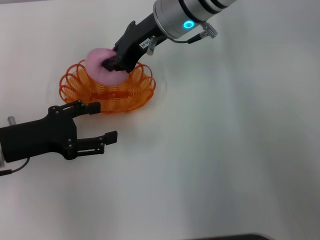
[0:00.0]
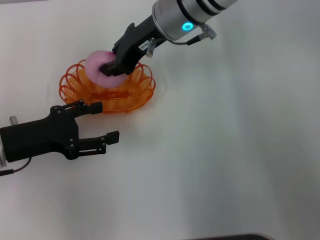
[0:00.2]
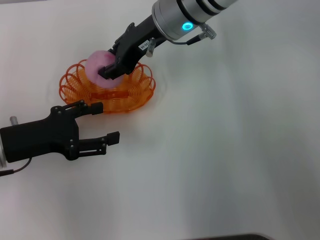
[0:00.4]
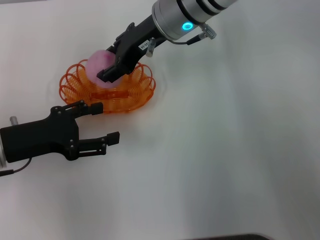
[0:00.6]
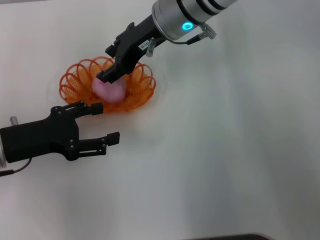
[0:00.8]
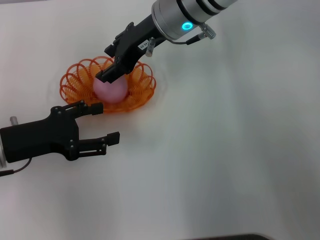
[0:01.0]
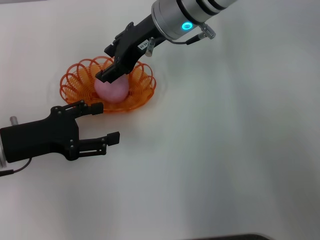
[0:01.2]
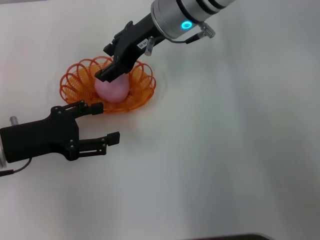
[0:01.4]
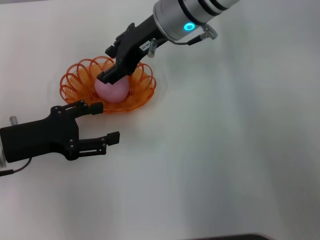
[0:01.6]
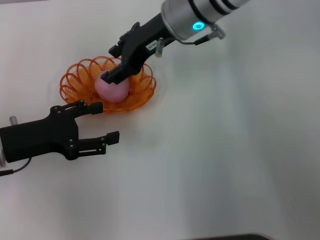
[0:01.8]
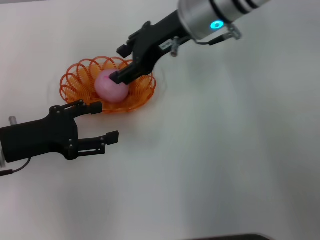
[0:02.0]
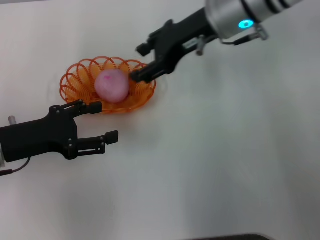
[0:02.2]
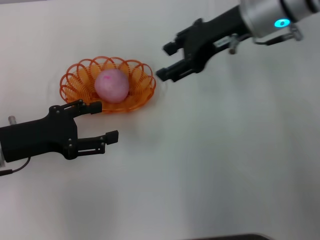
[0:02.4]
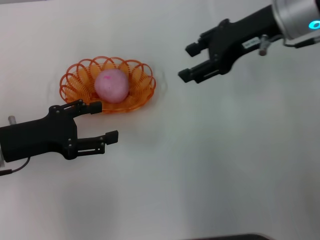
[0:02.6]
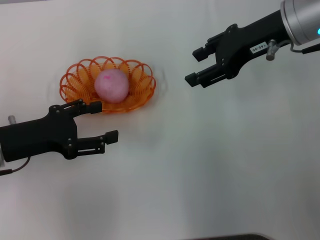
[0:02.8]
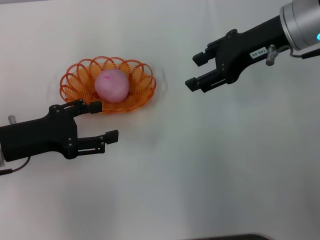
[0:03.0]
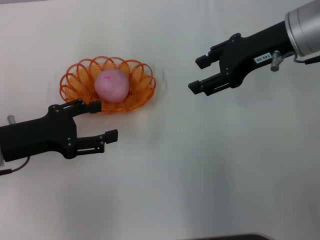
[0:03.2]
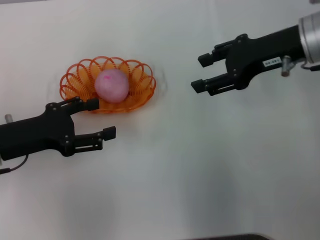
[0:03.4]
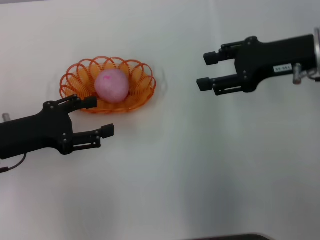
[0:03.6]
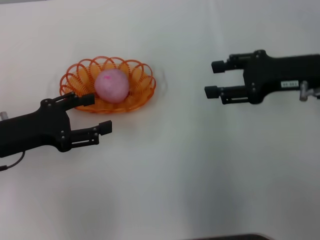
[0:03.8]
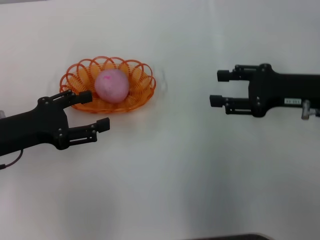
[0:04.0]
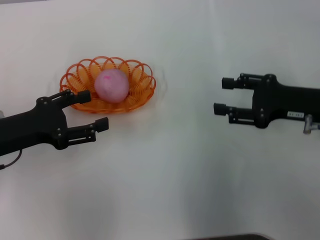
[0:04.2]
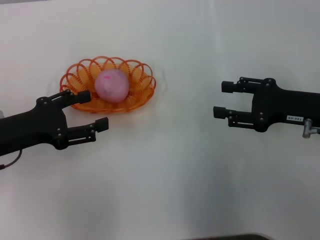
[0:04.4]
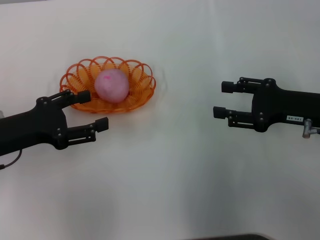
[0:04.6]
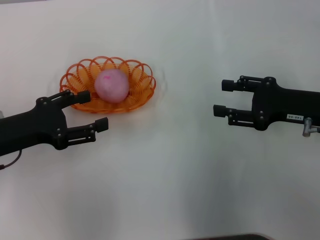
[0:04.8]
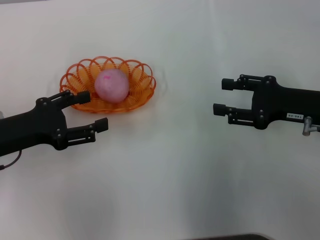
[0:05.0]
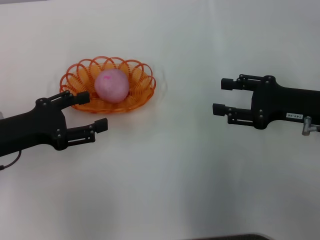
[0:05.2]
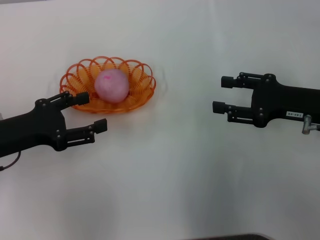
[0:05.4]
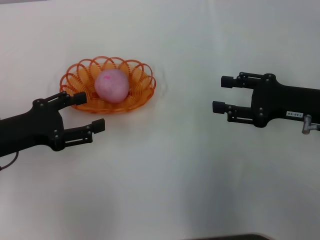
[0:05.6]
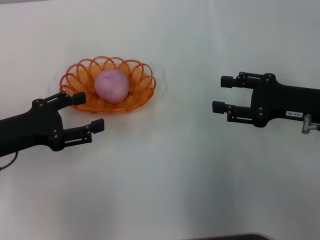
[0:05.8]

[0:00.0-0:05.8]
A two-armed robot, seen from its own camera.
Step, 0:00.0 to 0:02.6: Place the peach into the basket with the right gripper.
0:00.0 to 0:01.4: The right gripper opens.
0:01.4 to 0:02.8: The right gripper heads to the right, covering some 15 cm.
0:02.8 to 0:04.4: The right gripper shifts about 15 cm downward, backward and to the right.
0:04.4 to 0:05.8: Neither gripper changes place.

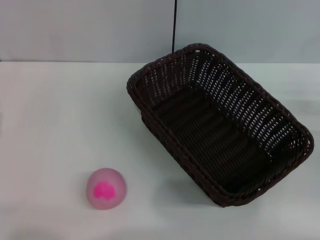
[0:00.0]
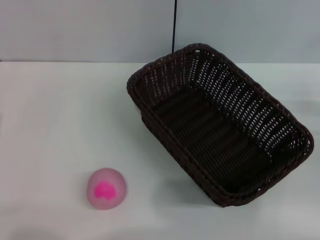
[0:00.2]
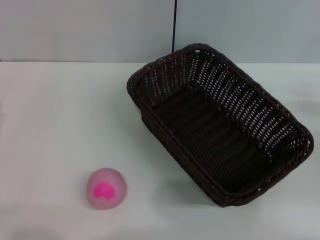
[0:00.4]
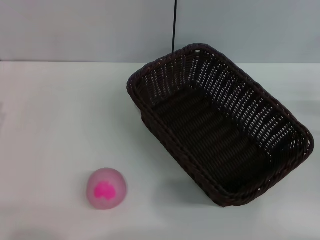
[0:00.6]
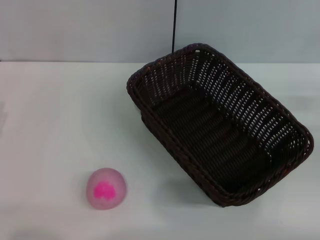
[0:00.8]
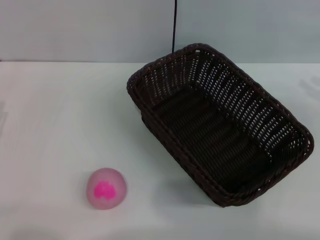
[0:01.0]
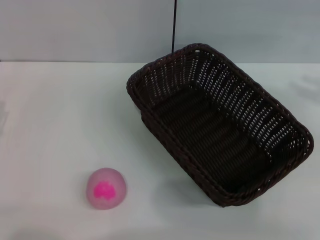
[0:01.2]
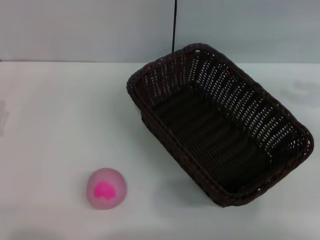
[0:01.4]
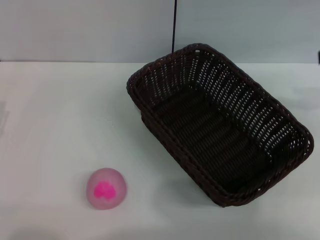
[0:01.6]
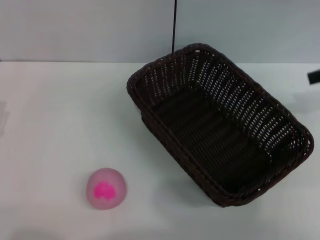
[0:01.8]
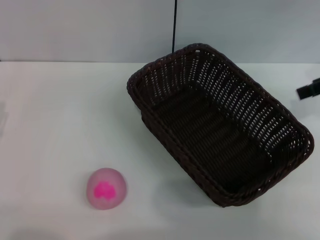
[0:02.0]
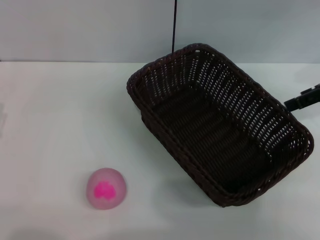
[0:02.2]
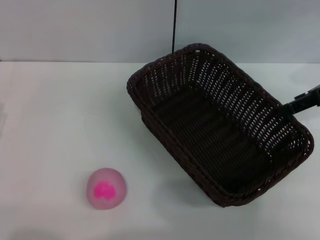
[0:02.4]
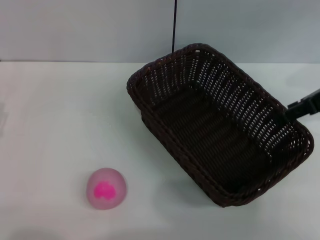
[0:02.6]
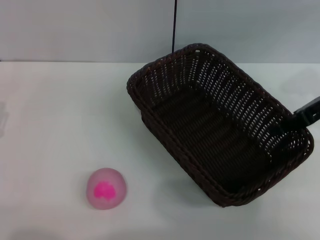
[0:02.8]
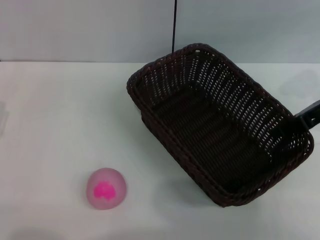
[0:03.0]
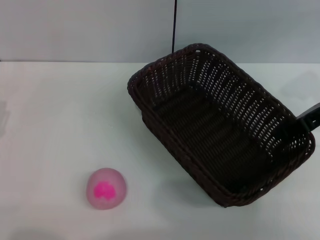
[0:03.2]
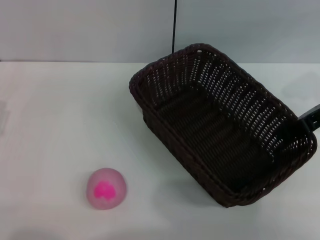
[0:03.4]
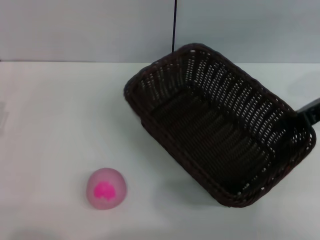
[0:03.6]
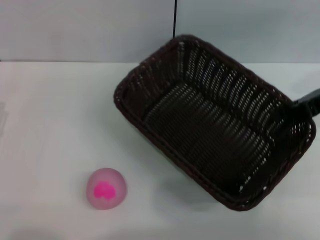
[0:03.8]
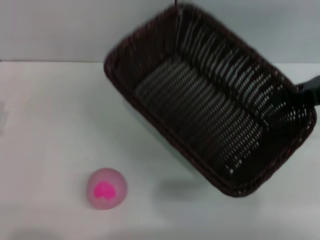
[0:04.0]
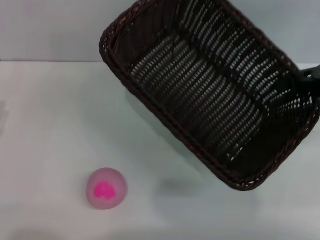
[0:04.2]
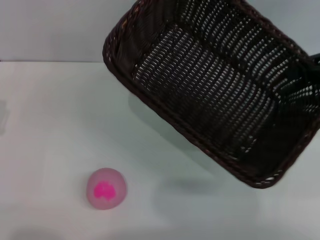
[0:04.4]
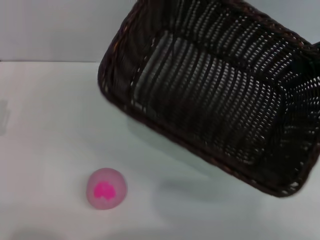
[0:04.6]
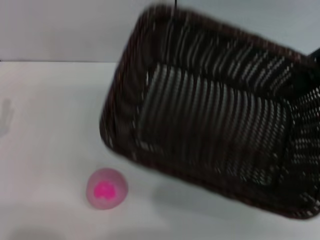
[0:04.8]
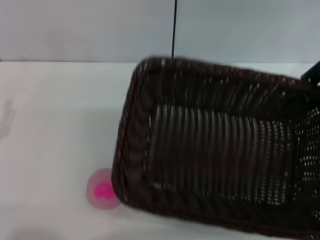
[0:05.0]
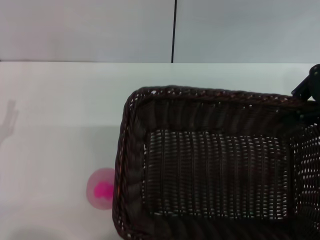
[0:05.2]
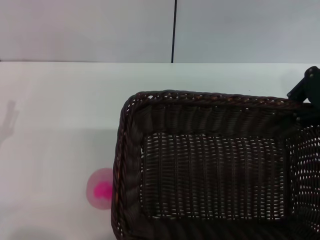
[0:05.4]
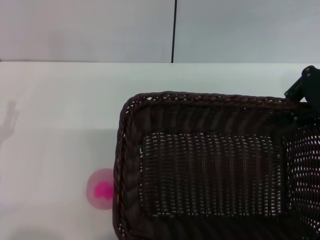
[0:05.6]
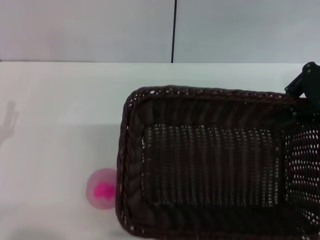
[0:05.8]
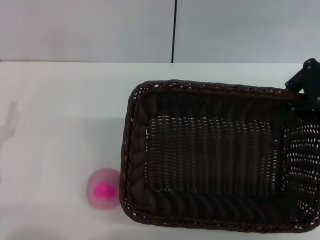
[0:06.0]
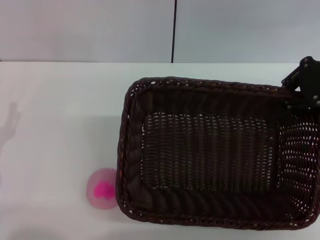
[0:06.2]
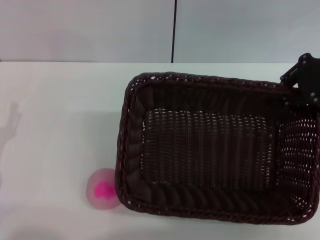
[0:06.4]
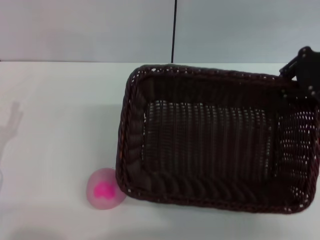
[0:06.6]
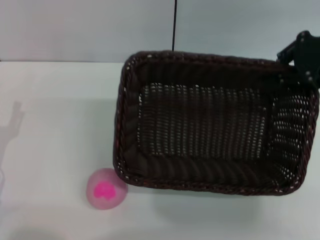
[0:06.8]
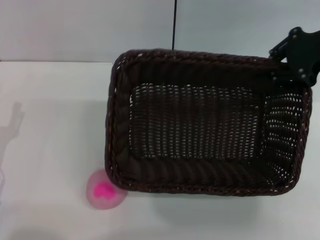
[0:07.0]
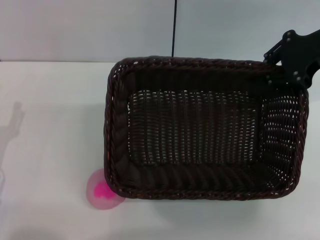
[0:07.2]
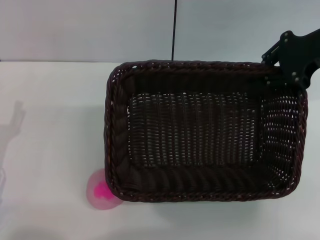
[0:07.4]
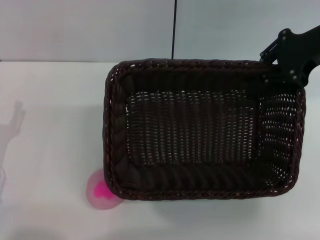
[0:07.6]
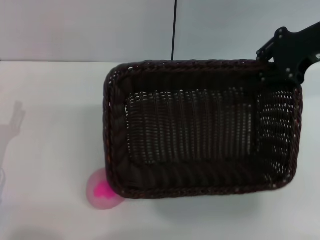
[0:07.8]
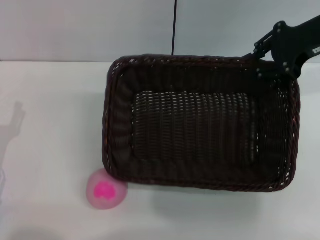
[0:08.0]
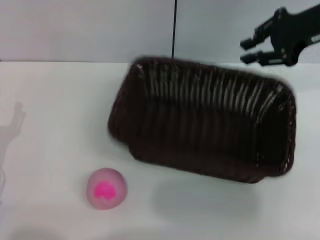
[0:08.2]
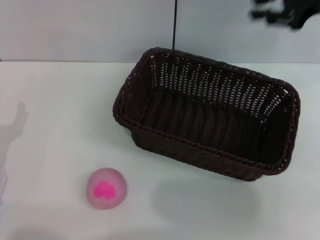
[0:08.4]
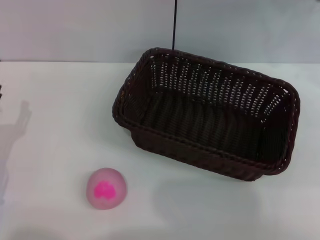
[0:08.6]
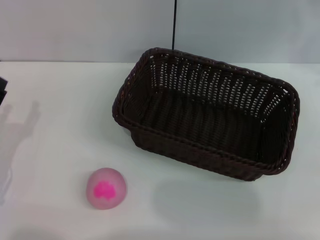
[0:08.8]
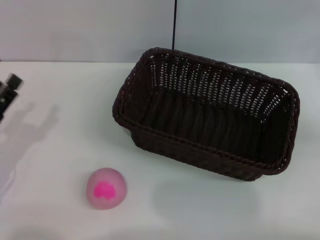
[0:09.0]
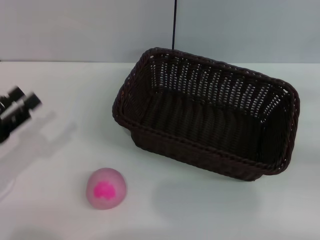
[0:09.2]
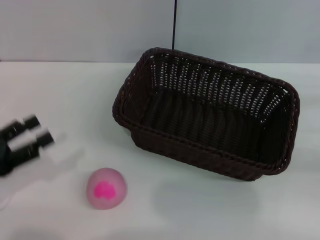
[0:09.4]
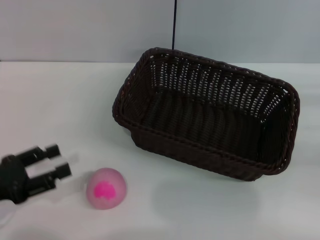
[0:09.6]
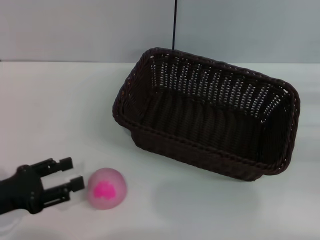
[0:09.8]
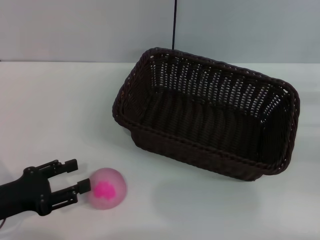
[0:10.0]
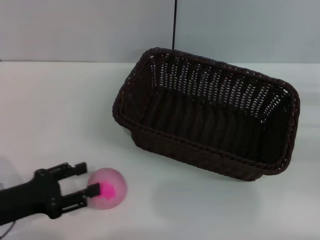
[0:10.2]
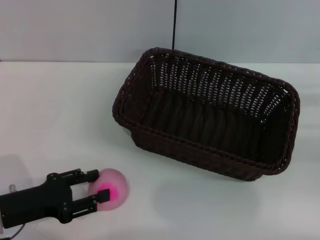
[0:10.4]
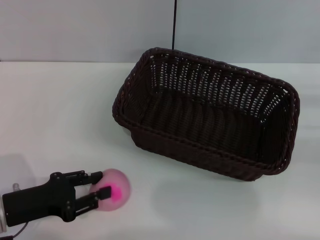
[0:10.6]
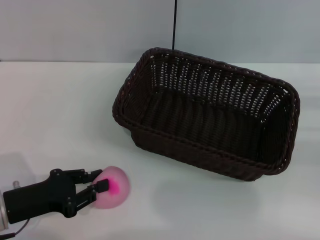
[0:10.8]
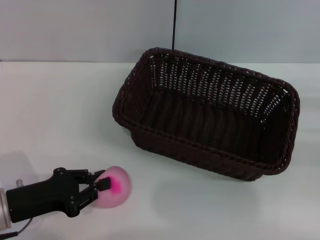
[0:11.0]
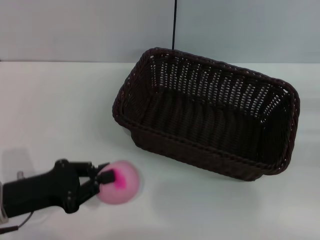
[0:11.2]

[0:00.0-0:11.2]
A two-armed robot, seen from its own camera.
Step, 0:00.0 to 0:04.0: Pick up the dark basket with the right gripper.
Step, 0:04.2 to 0:08.6: Place the dark basket in the center of view with the right gripper.
0:00.0 to 0:01.6: The right gripper moves upward, about 20 cm.
0:01.6 to 0:03.2: The right gripper shifts about 10 cm downward and to the left, and closes up.
0:03.2 to 0:04.8: The right gripper is displaced upward by approximately 10 cm, and closes its fingers.
0:08.0 to 0:09.6: The left gripper shifts some 5 cm upward; the right gripper goes some 25 cm to the right, downward and backward.
0:09.6 to 0:11.2: The left gripper is displaced to the right by approximately 5 cm, and closes its fingers.

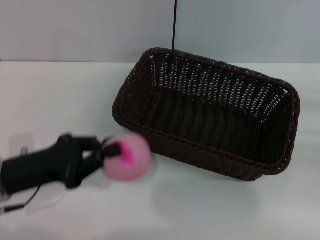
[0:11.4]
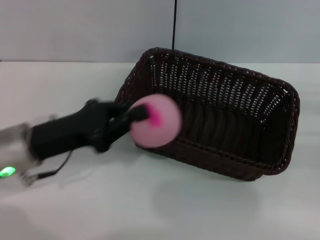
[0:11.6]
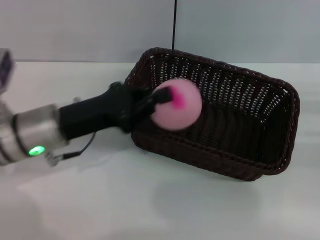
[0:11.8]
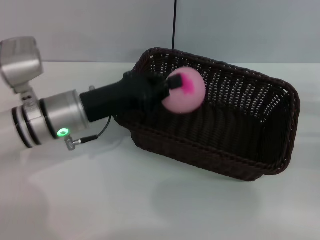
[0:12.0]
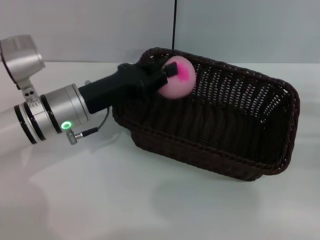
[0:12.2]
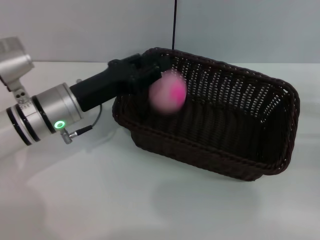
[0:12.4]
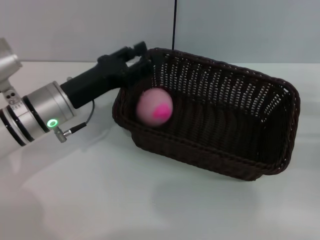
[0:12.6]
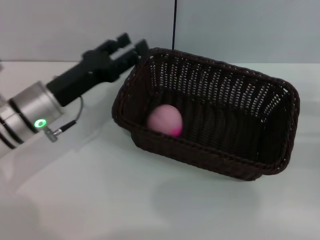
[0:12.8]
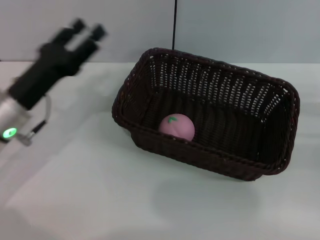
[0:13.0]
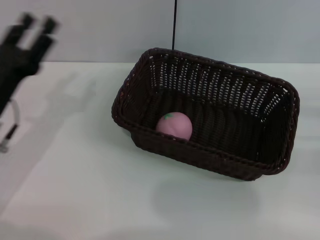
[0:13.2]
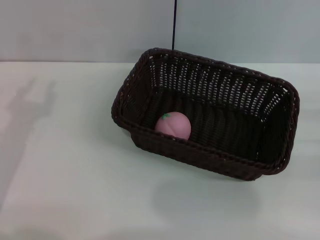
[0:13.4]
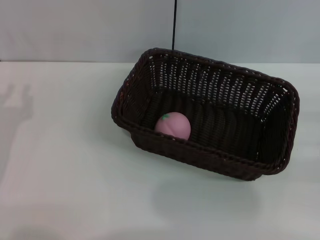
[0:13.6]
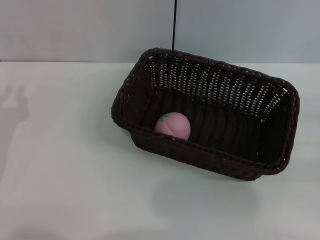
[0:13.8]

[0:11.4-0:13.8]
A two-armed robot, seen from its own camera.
Step, 0:12.0 to 0:12.8: Place the peach into the basket with the left gripper.
0:11.4 to 0:12.6: The left gripper goes some 10 cm forward and to the right.
0:12.6 to 0:13.8: The left gripper moves to the left and backward, about 15 cm, and opens, then closes once more.
